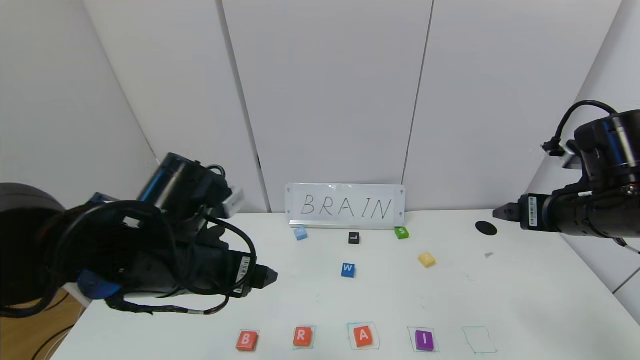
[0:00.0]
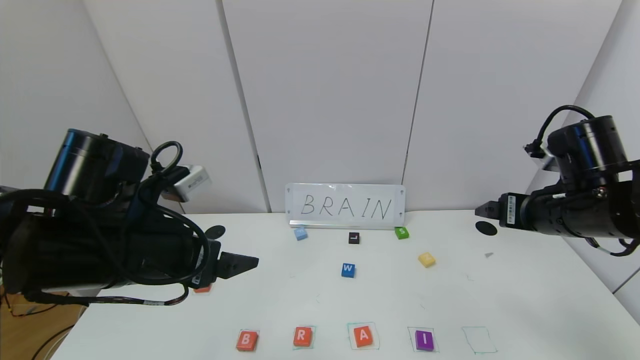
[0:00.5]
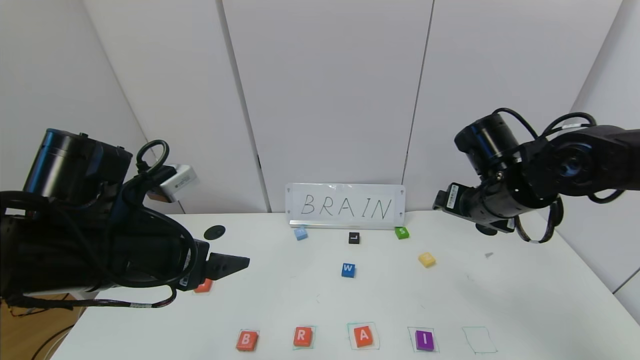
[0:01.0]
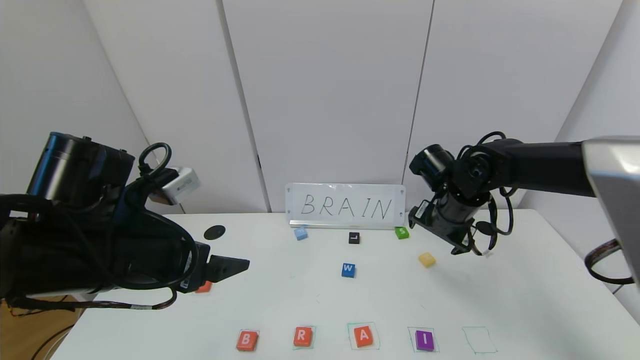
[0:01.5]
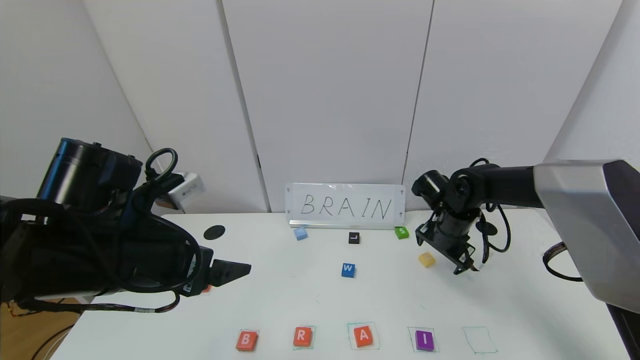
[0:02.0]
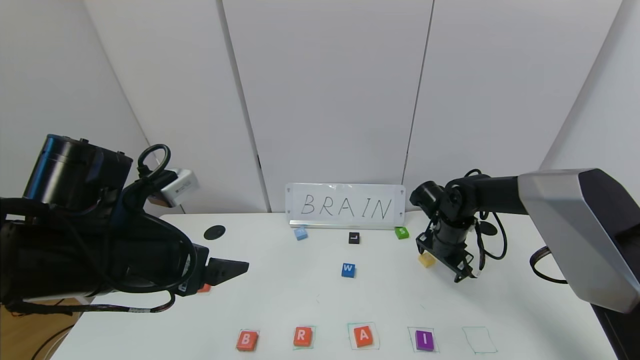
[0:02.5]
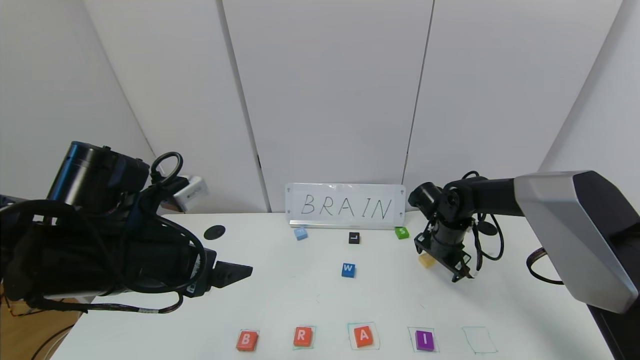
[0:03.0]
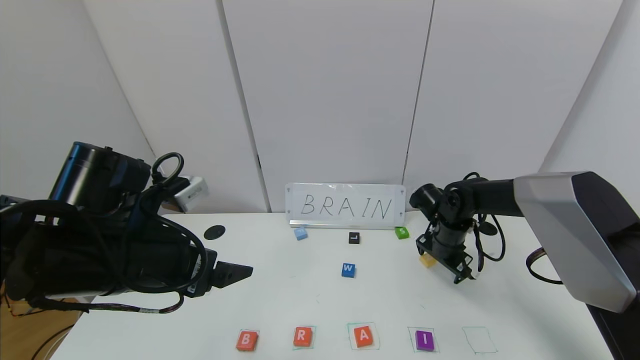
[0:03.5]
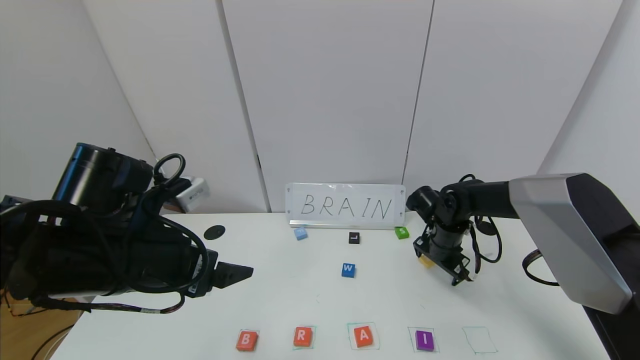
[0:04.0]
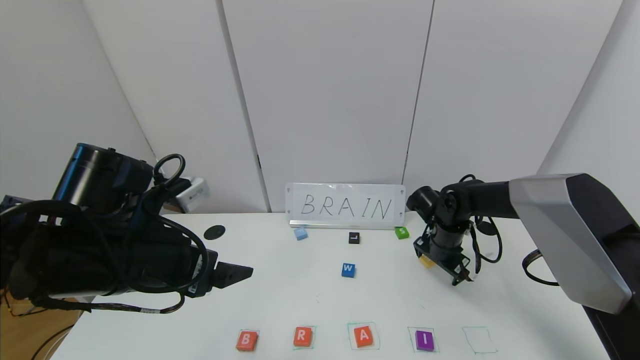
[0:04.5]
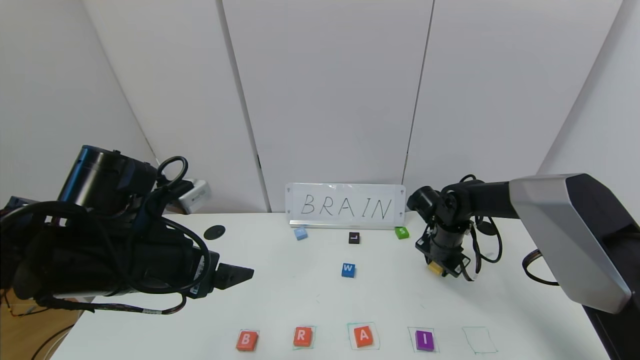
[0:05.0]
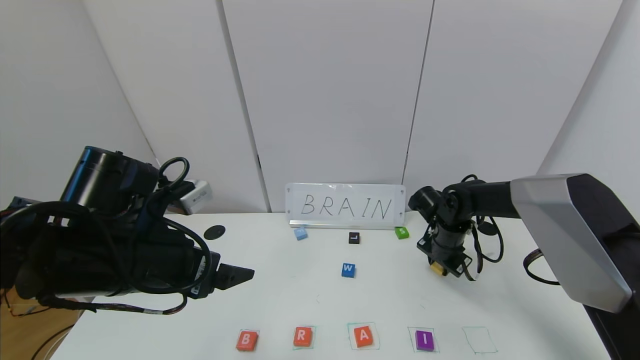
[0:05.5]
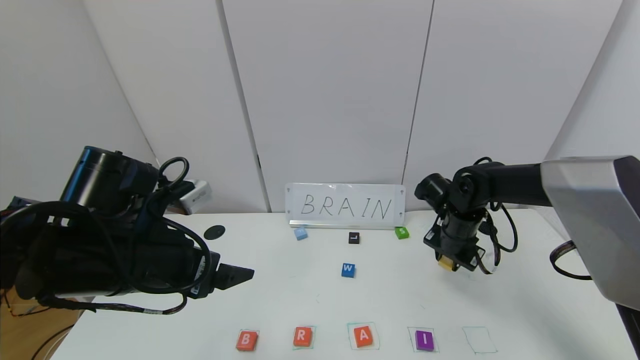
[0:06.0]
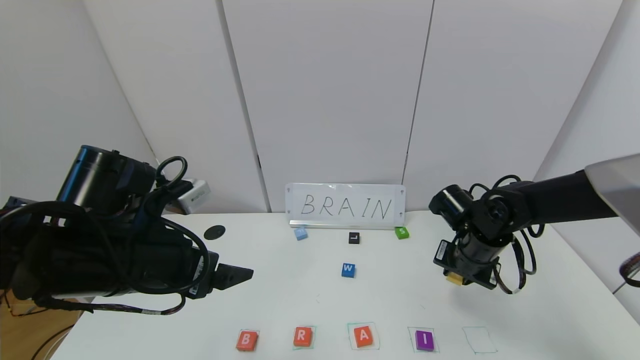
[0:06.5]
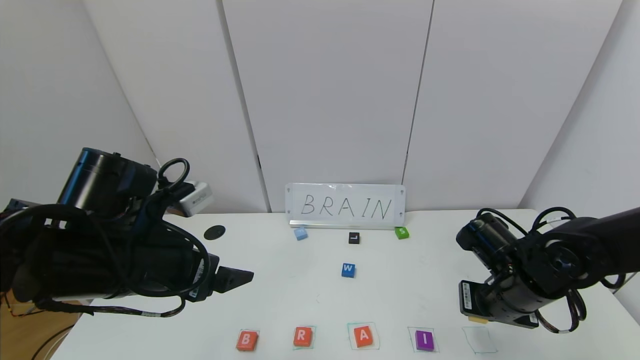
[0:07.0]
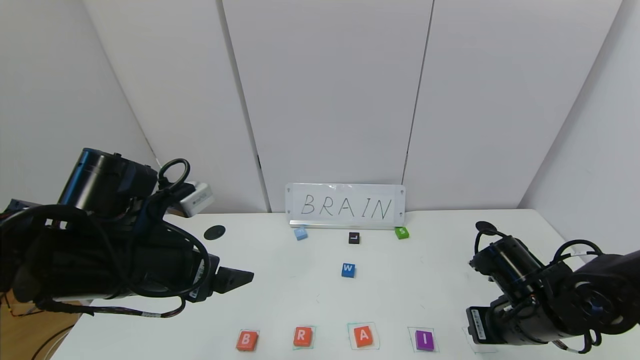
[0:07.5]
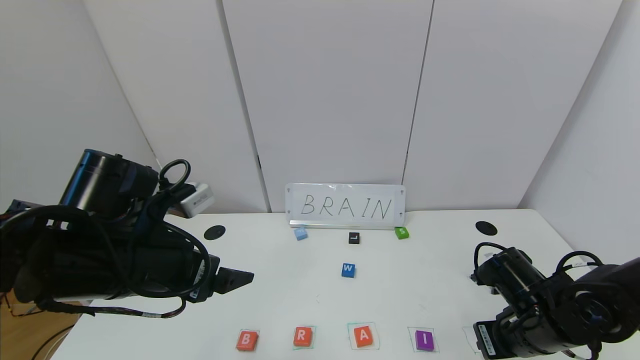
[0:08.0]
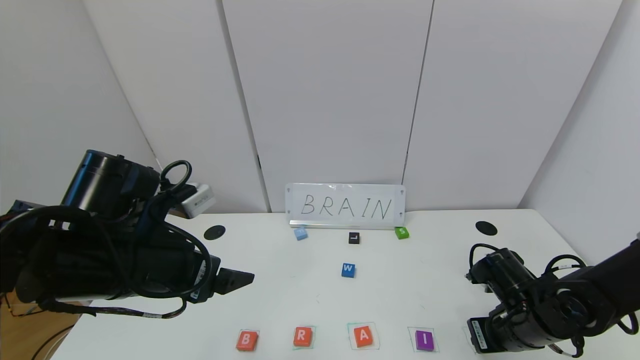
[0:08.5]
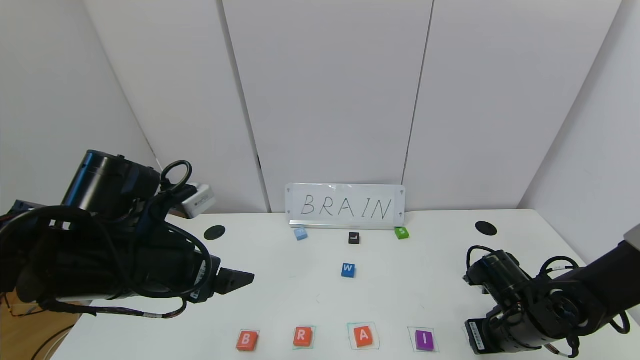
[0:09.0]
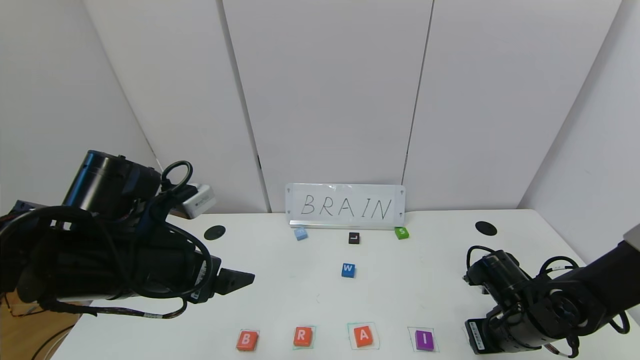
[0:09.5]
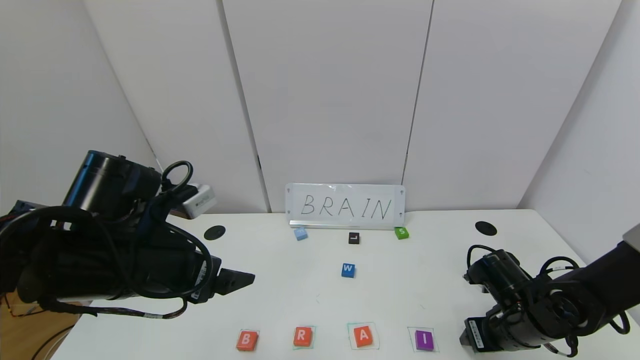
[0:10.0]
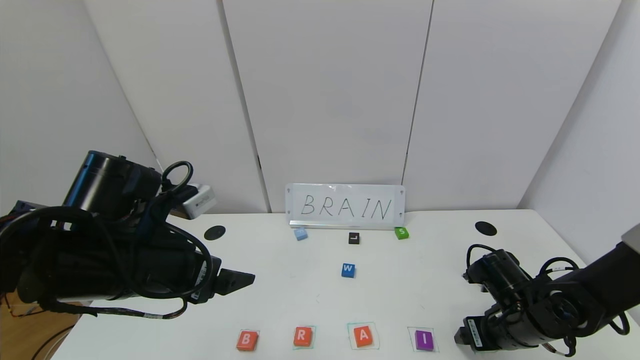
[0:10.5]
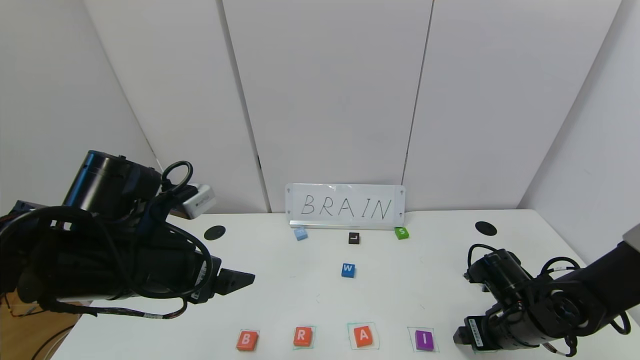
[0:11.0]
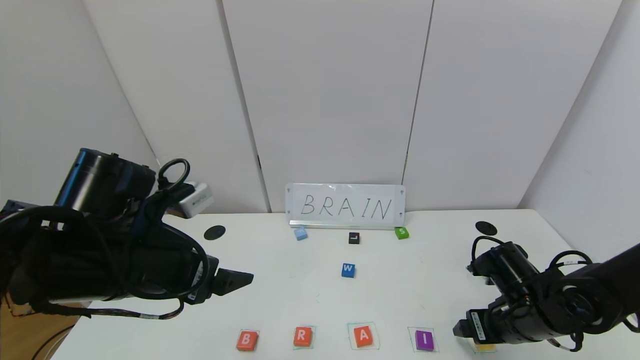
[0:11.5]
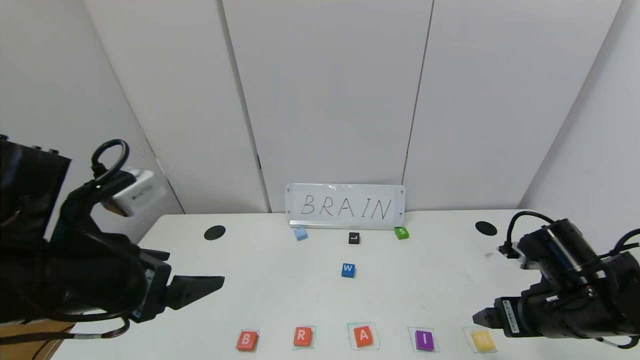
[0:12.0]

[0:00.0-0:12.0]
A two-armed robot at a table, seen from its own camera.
Task of the whole recording: use the gripper to find blocks with the letters b, a, a, and i on the table and arrange them into BAAI, then find r and N and turn the arranged baai into brian.
Step, 0:00.0 to 0:09.5: Place the block N in the fifth location.
0:00.0 to 0:02.0: The right gripper goes approximately 20 cm forward, downward and to the left; the left gripper is displaced to the left by roughly 5 cm.
0:02.0 to 0:04.0: The grippers make only small movements.
0:04.0 to 0:06.0: The right gripper moves some 5 cm, and closes its fingers.
0:06.0 to 0:08.0: The right gripper goes approximately 15 cm backward.
0:08.0 to 0:10.0: The right gripper opens its fingers.
0:10.0 to 0:12.0: The right gripper heads upward, covering roughly 10 cm; the left gripper moves backward, approximately 5 cm.

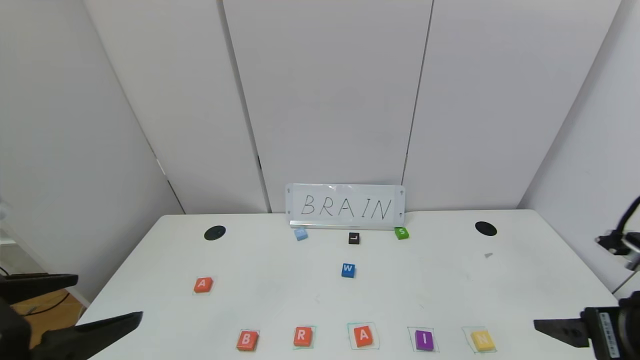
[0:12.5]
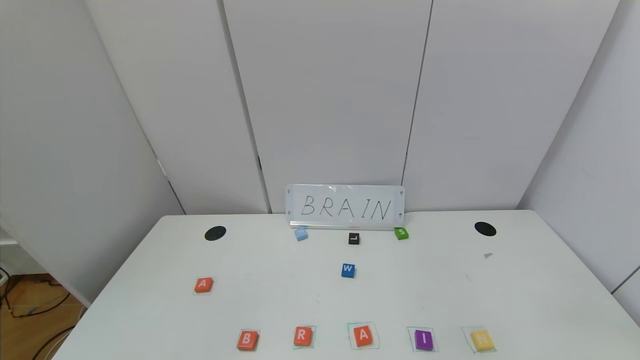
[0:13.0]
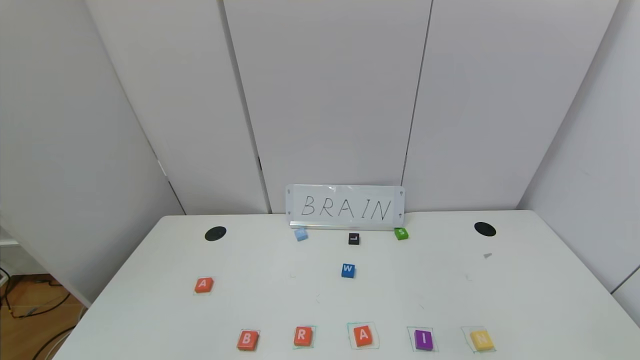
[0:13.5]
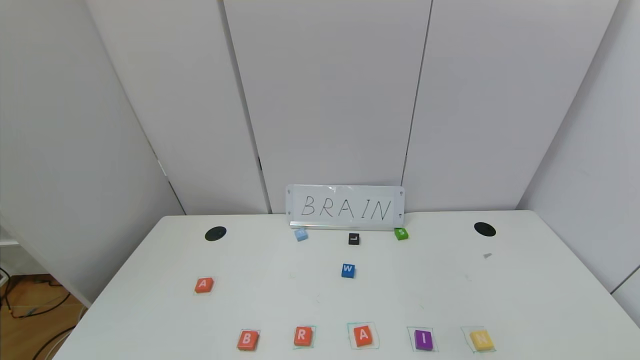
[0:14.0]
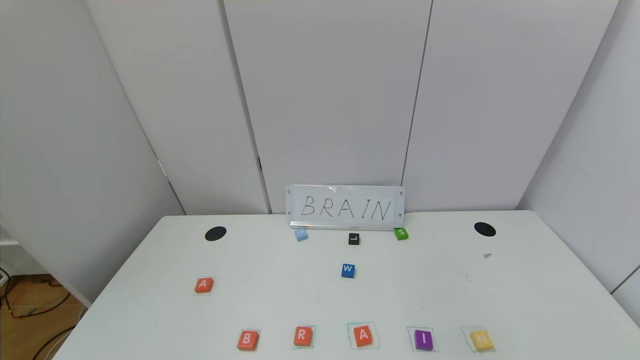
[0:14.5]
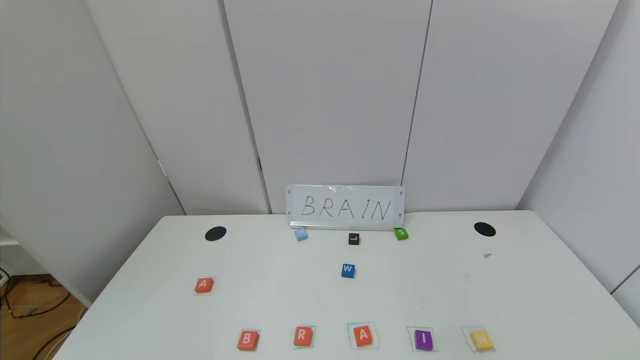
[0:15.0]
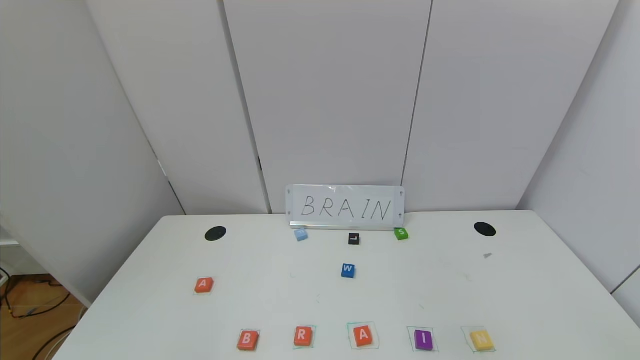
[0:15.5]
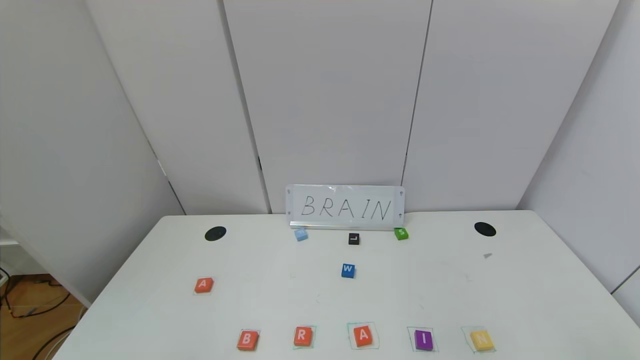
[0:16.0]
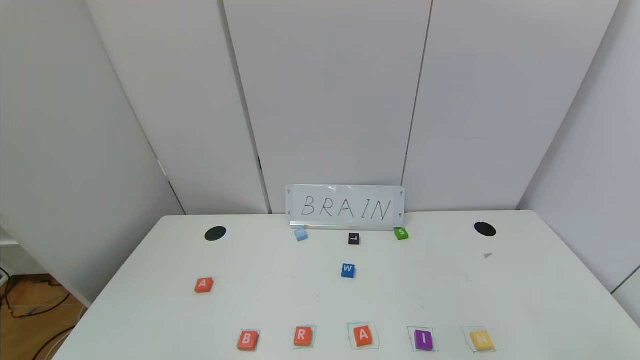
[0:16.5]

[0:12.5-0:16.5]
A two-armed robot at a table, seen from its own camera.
Task of the whole recording: use the gripper to find blocks with the letters b, a, a, and i on the table and arrange them into BAAI, then find r and N and turn the arranged baai into brian.
0:12.5 to 0:14.5: The left gripper shifts approximately 25 cm backward and downward. Meanwhile the right gripper is displaced backward by about 25 cm.
